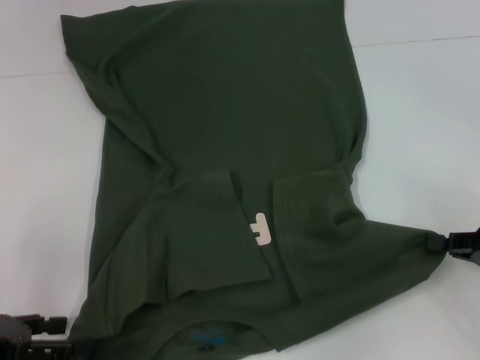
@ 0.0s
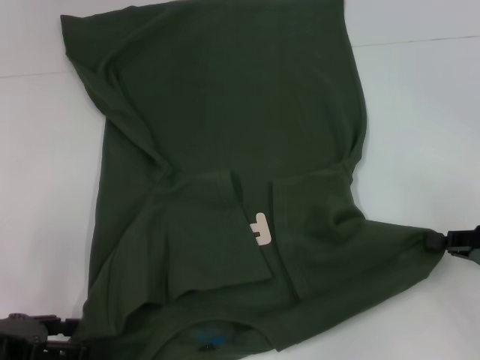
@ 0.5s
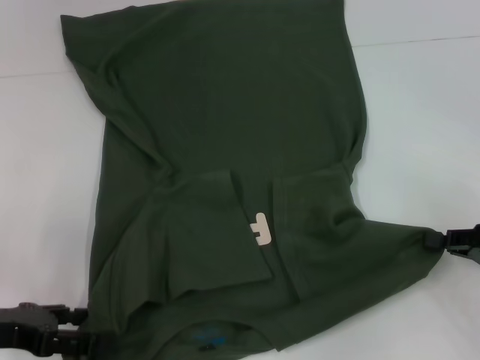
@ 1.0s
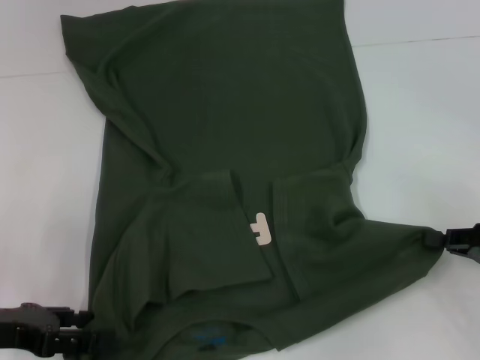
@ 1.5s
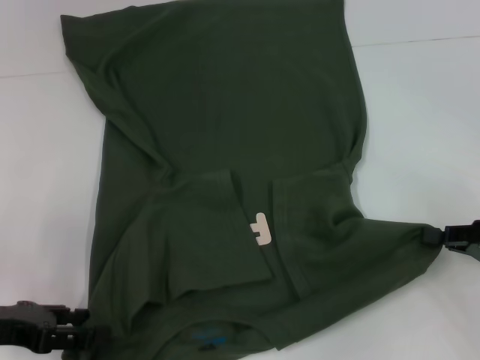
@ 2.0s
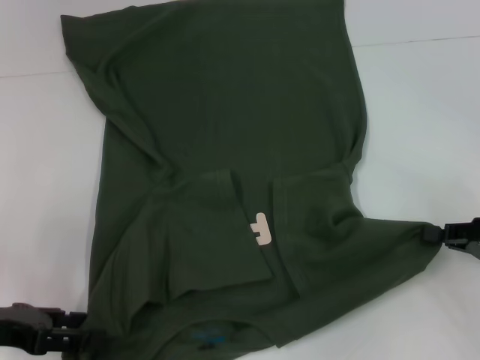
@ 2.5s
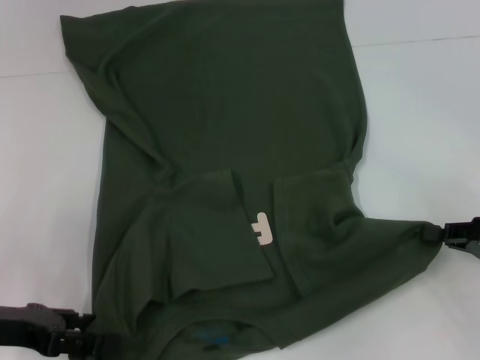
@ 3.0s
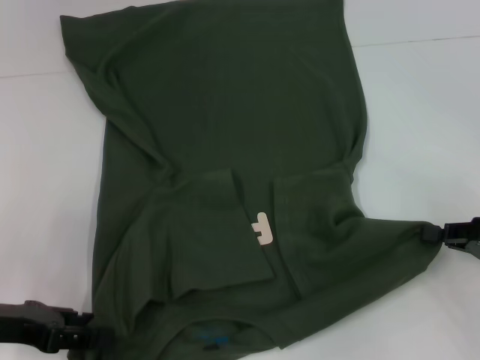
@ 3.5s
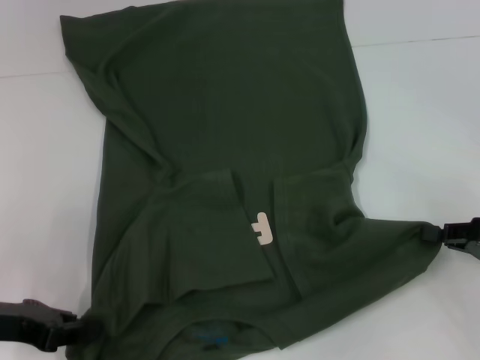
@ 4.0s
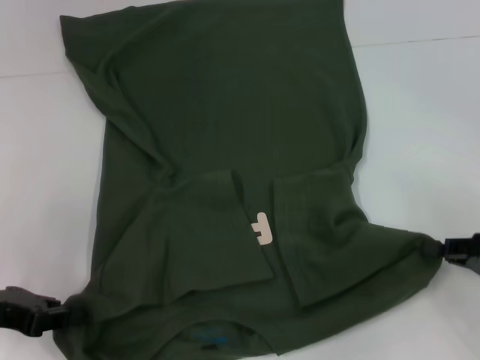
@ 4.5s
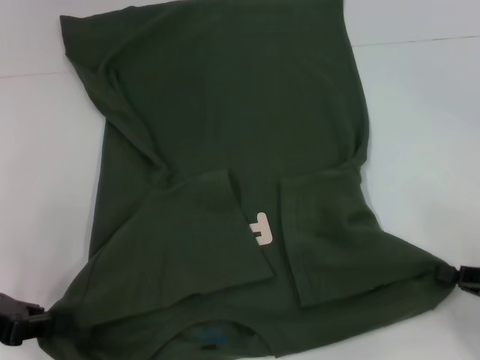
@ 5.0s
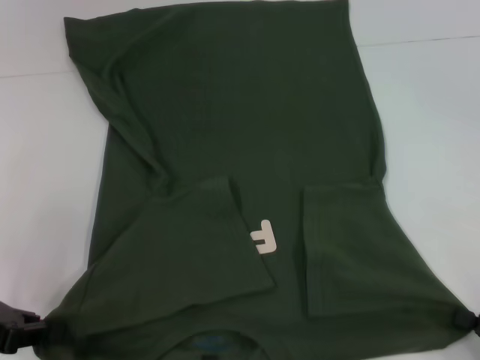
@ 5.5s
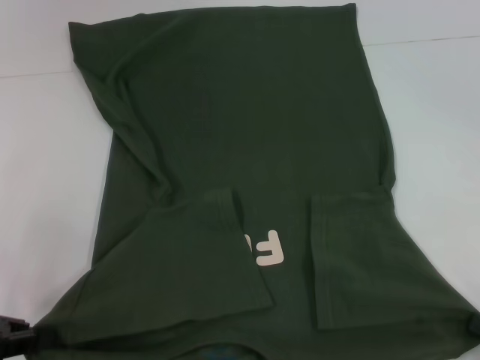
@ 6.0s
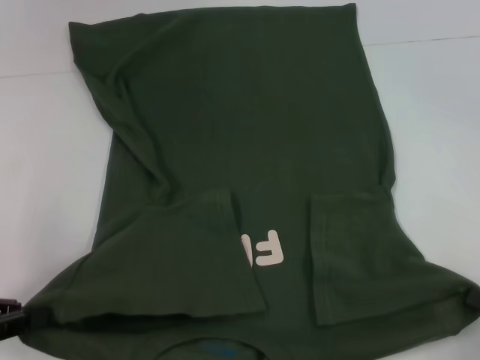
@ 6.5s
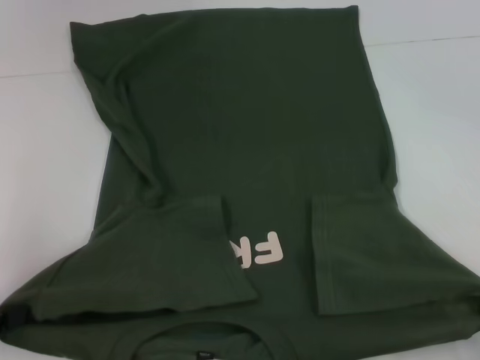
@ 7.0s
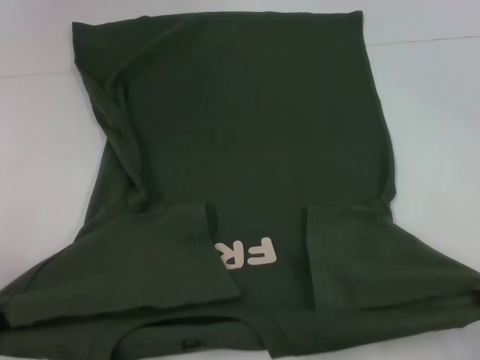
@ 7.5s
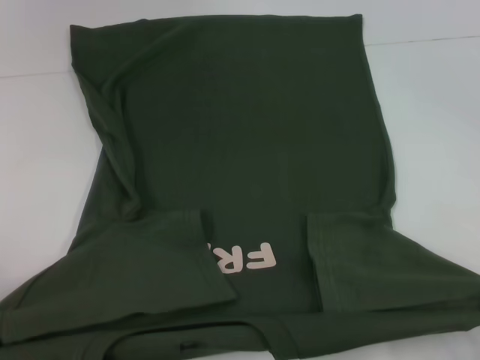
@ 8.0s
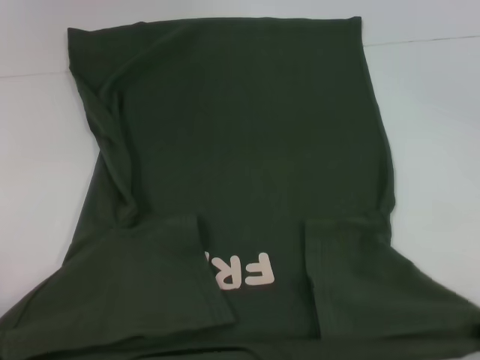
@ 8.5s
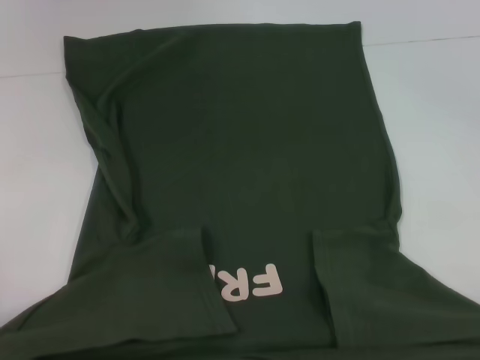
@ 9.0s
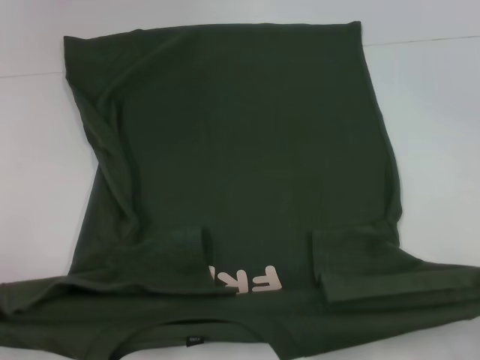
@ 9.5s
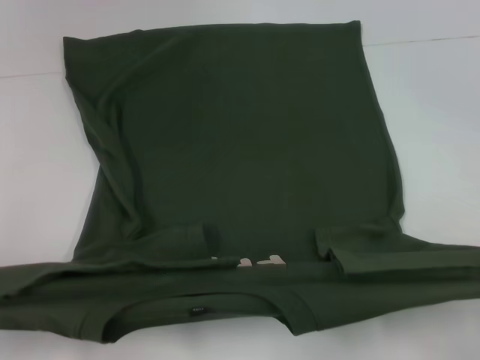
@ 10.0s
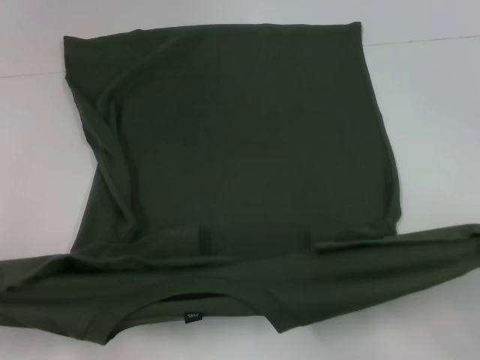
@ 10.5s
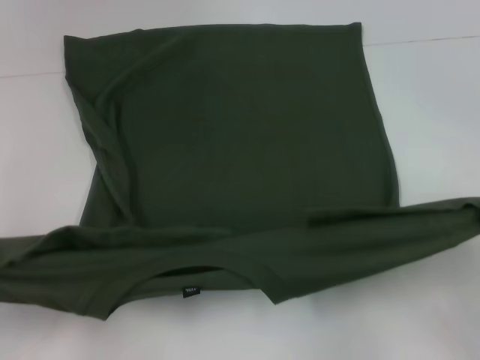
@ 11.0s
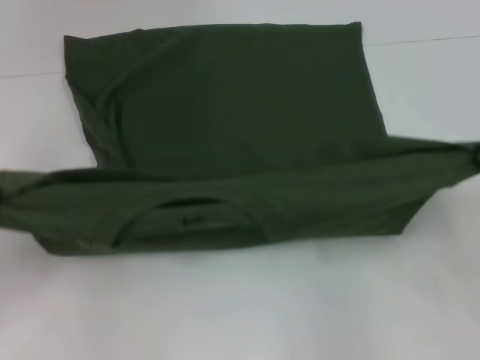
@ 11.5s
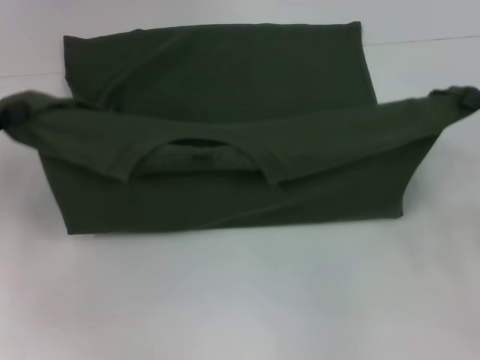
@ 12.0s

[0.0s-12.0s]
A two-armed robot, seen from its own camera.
Step, 0.0s to 5.0s: Grab the bottom left corner with your left hand.
0.0s to 2.0s: The grippers stay close to where they were, moving slightly.
2.0s to 4.0s: The left gripper closes its fingers.
4.0s to 6.0s: The right gripper travels backward by roughly 15 cm.
6.0s to 8.0s: The left gripper heads backward and to the left, covering roughly 10 cm.
8.0s to 10.0s: The grippers stay close to where they were, moving slightly.
10.0s to 12.0s: The grippers both shift forward by some 15 cm.

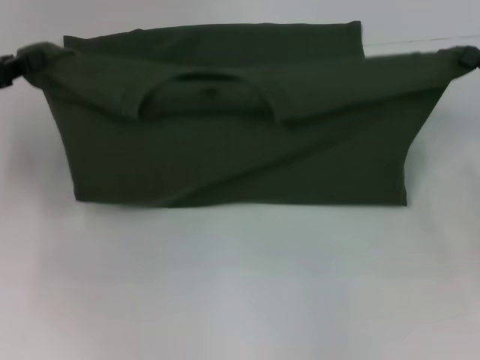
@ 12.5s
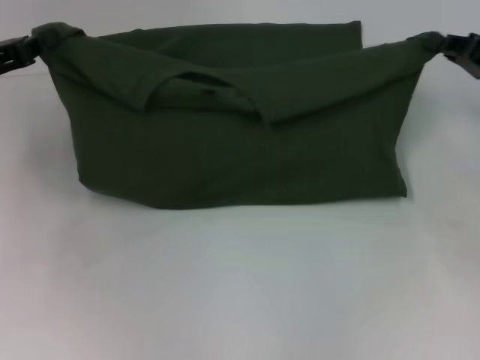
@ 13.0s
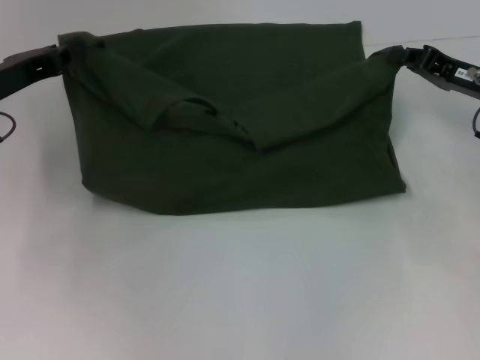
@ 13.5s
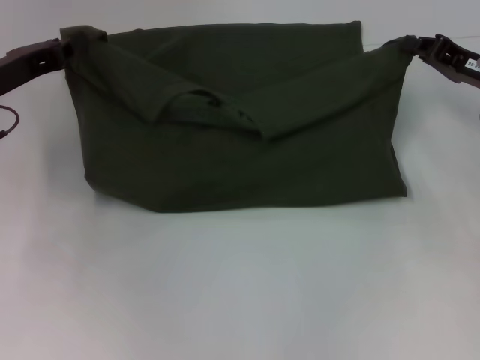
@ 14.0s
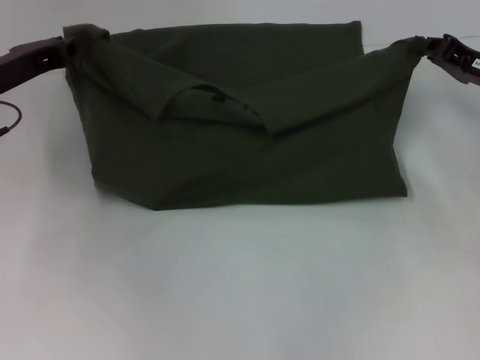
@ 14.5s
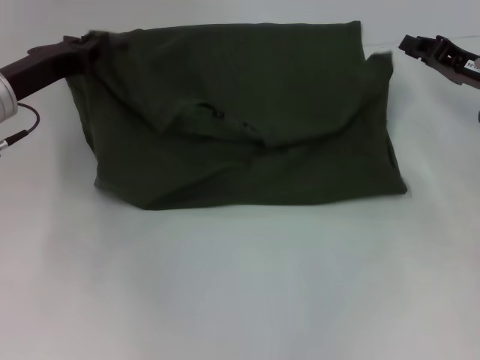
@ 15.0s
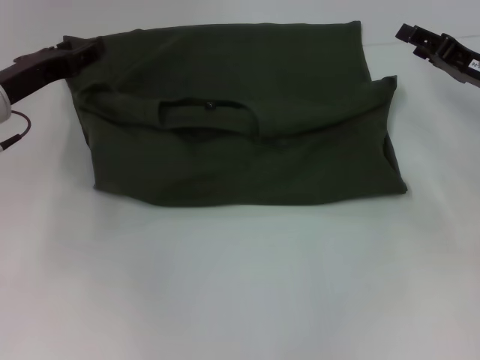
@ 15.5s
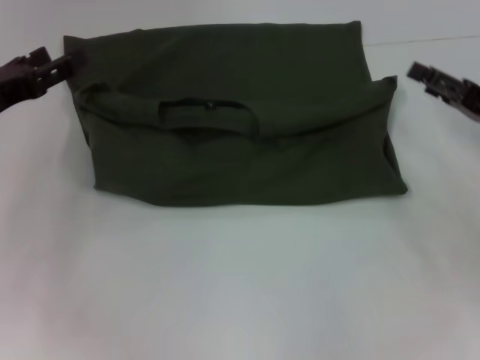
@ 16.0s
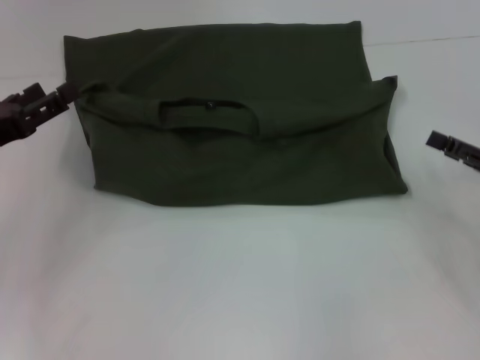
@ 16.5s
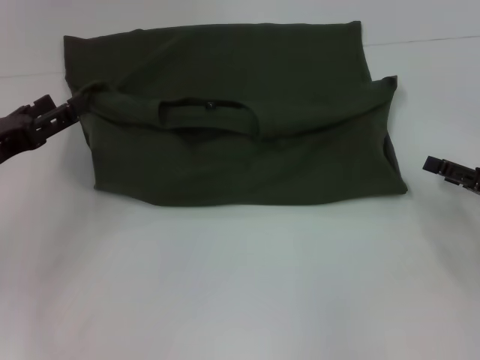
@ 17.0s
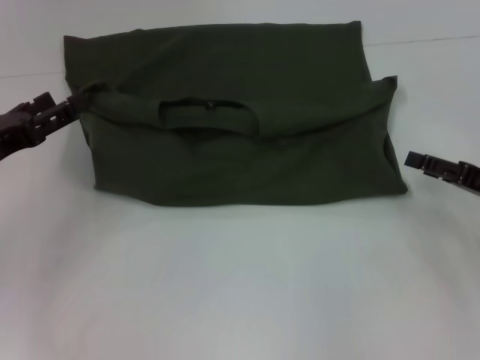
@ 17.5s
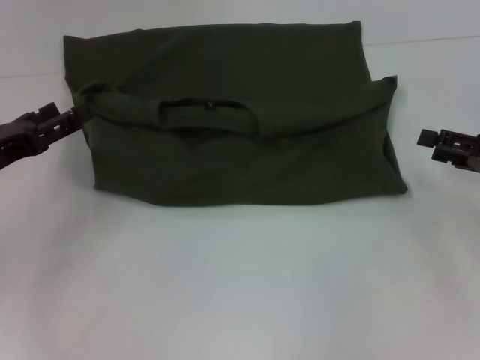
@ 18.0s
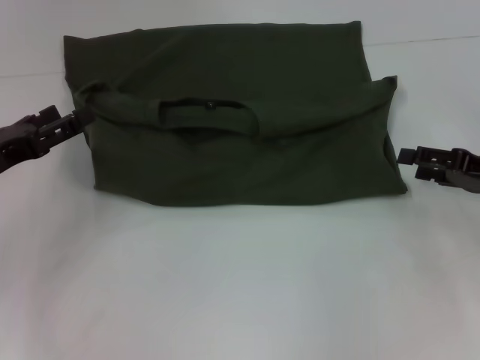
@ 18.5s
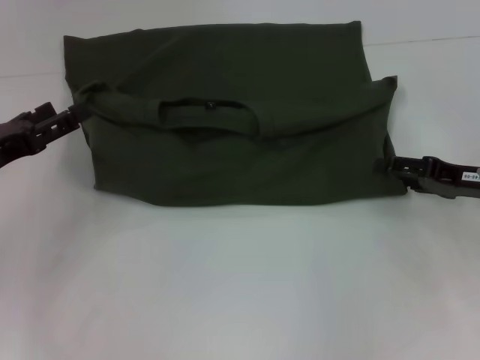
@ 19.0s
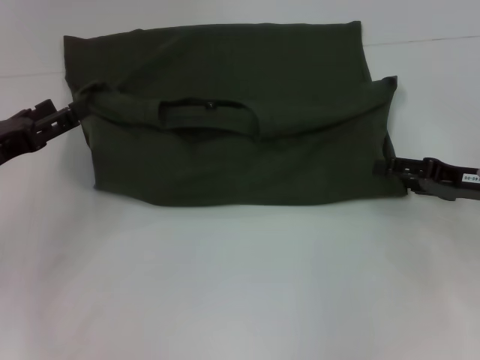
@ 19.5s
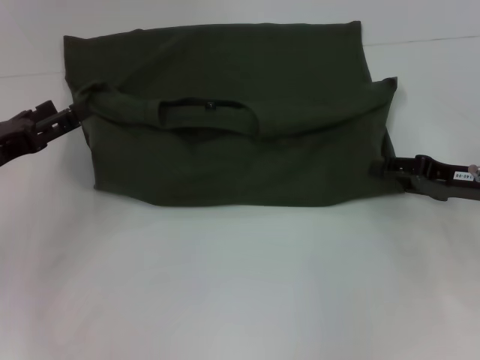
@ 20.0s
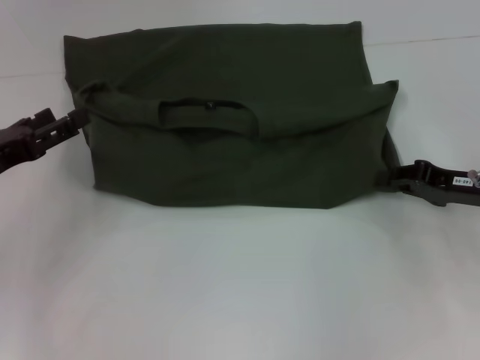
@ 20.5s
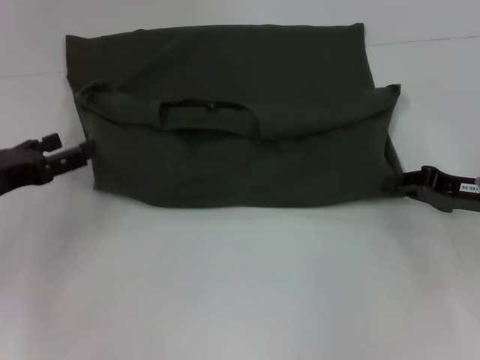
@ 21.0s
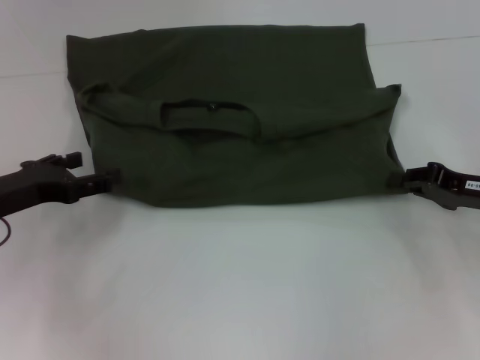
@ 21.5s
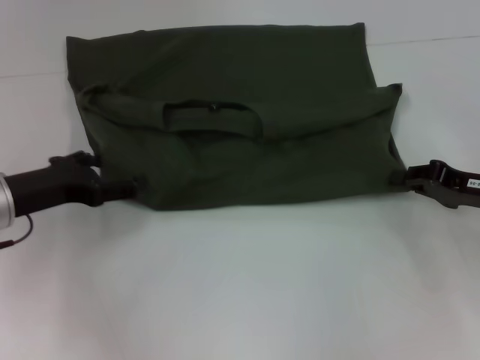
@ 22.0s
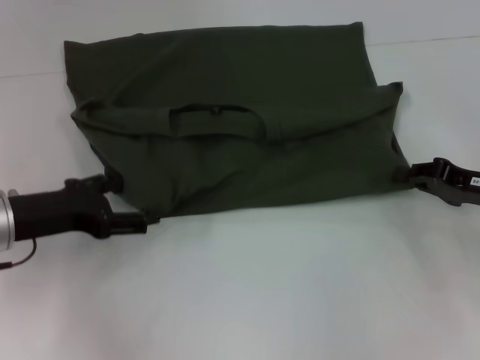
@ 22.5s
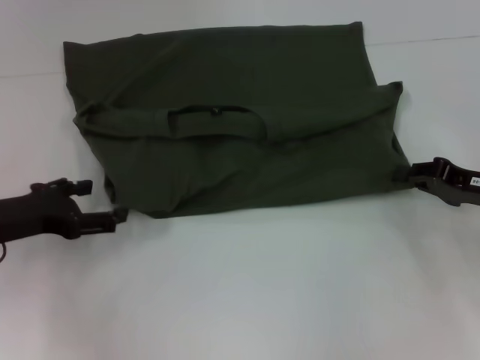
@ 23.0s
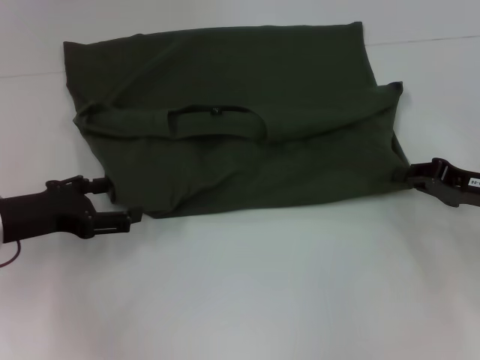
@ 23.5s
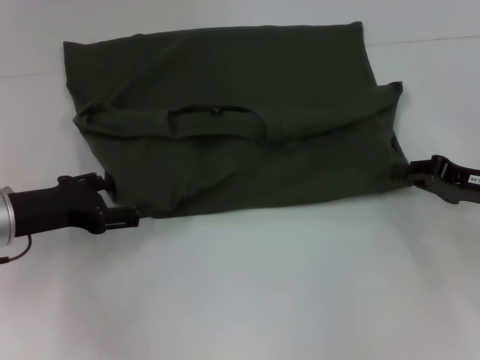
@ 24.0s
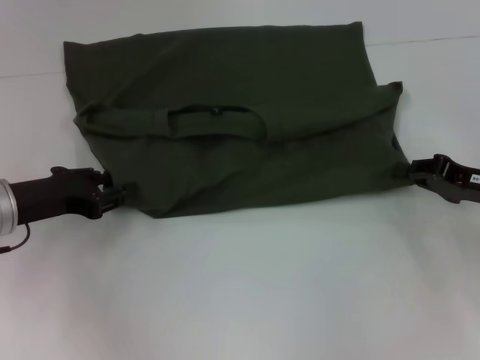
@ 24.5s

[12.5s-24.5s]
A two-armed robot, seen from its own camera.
Step, 12.5s to 16.5s: Fold the clothes with your left hand.
Step, 12.5s to 16.5s: Fold the clothes with your right hand.
12.5s to 14.5s: The right gripper shifts approximately 5 cm forward. The left gripper moves to the right, approximately 5 cm.
14.5s to 16.5s: Both grippers travel together backward, some 10 cm. The left gripper opens, while the right gripper opens up.
16.5s to 18.5s: The grippers stay close to where they were, moving slightly.
18.5s to 20.5s: The right gripper closes.
22.5s to 24.5s: The left gripper closes its fingers.

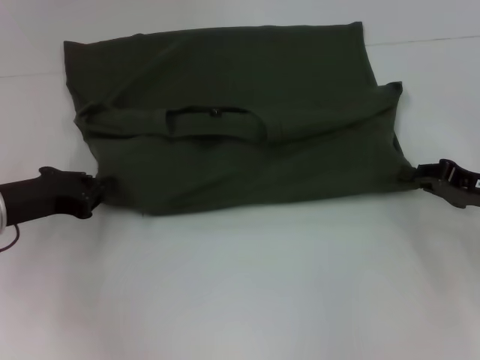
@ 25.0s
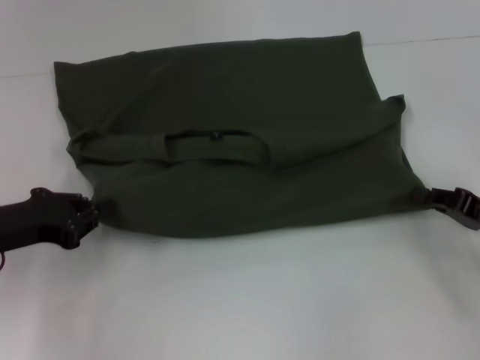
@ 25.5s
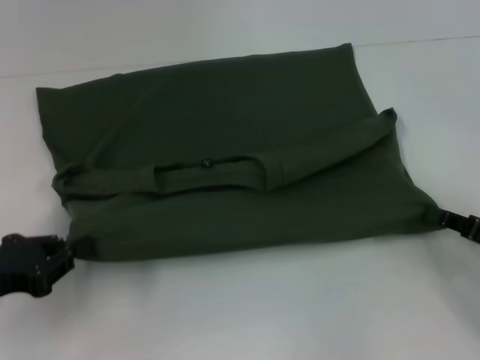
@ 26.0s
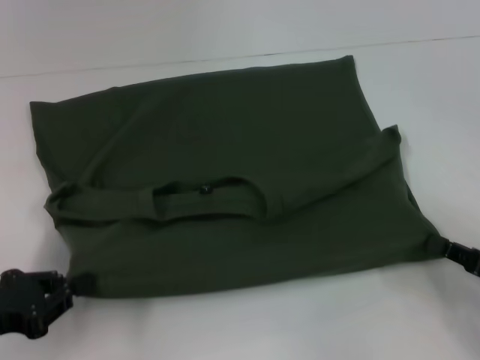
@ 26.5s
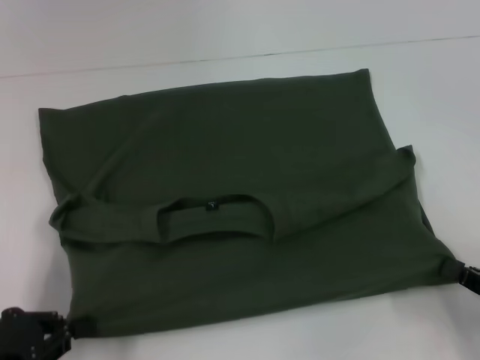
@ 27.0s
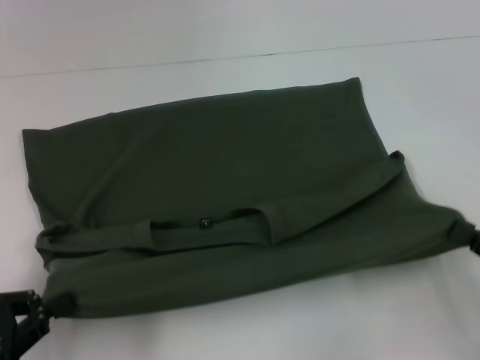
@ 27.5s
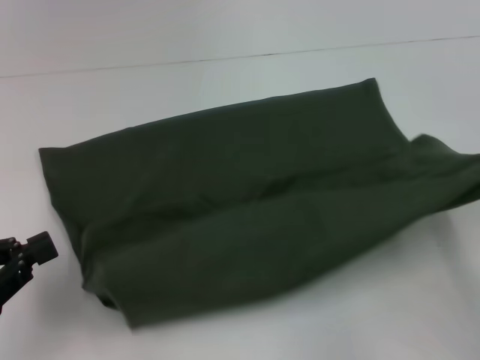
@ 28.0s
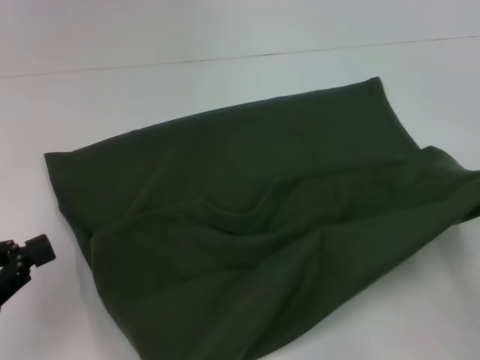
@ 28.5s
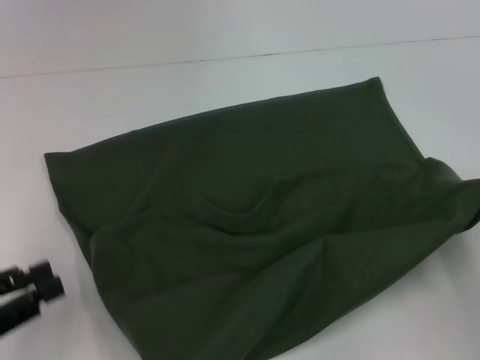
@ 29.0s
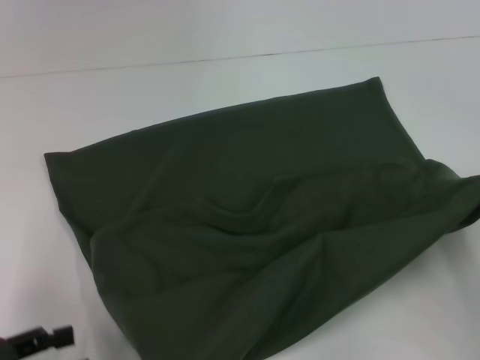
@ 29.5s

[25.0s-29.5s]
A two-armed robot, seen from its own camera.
25.0s to 27.0s: The two grippers go some 15 cm backward.
27.0s to 29.5s: The left gripper opens.
